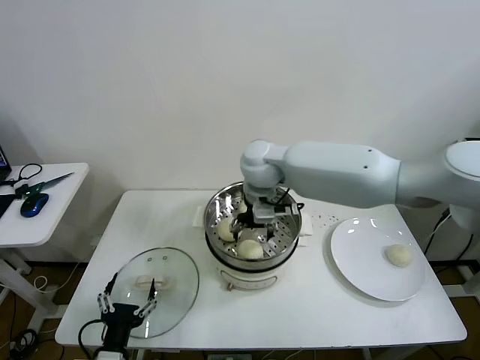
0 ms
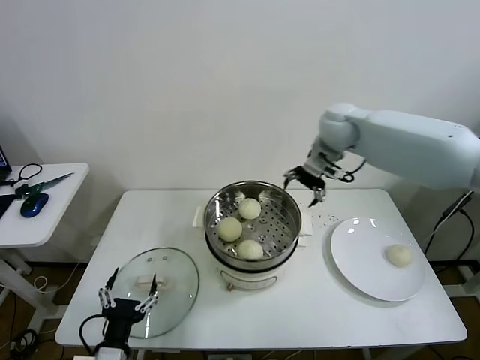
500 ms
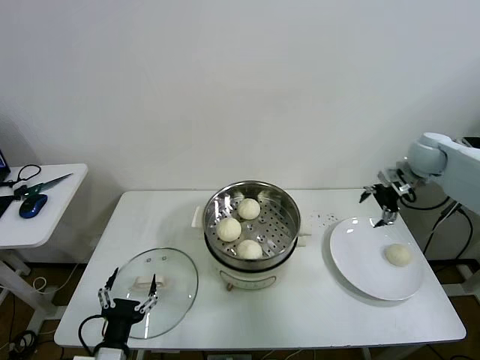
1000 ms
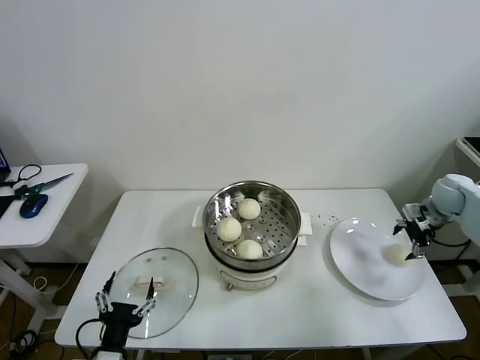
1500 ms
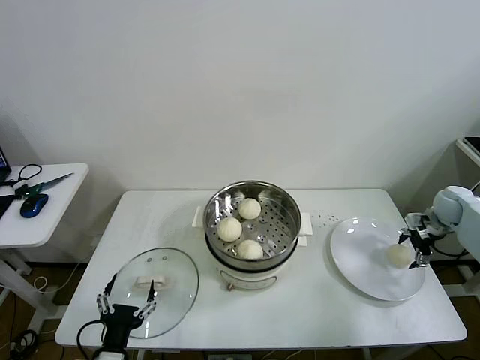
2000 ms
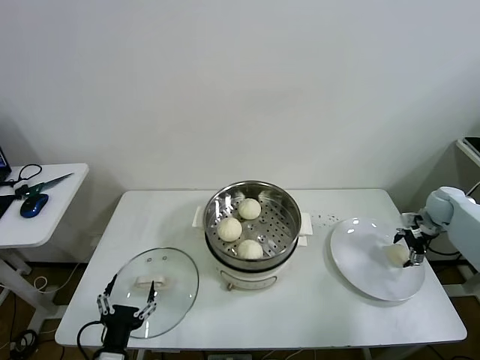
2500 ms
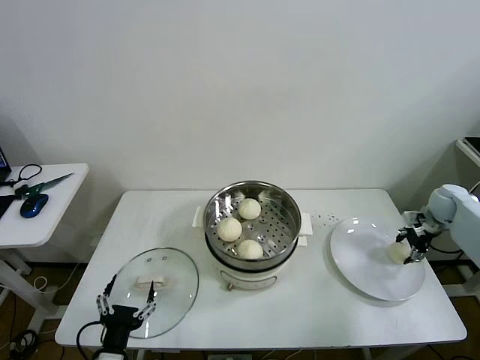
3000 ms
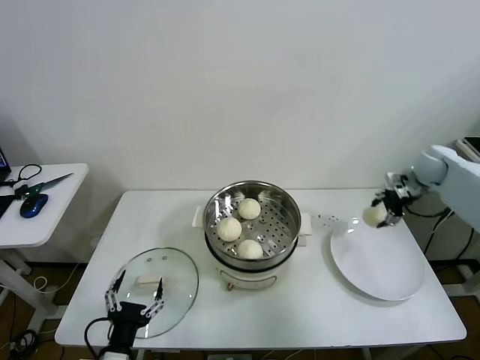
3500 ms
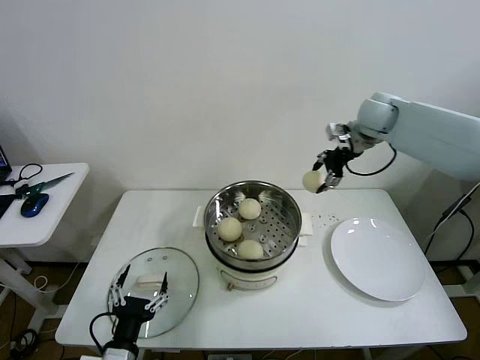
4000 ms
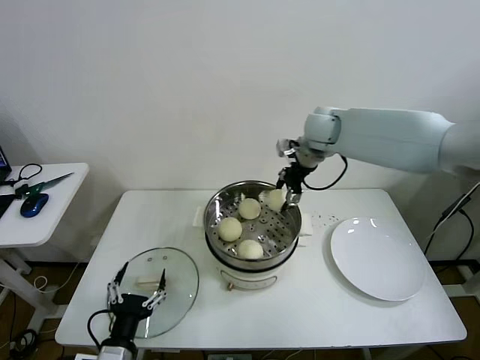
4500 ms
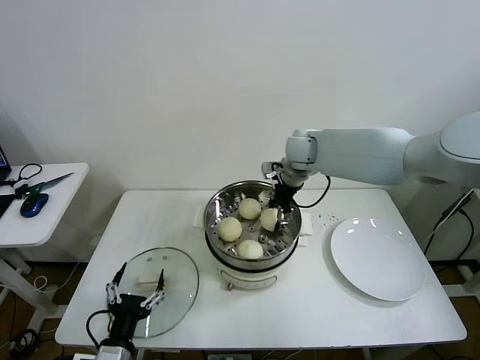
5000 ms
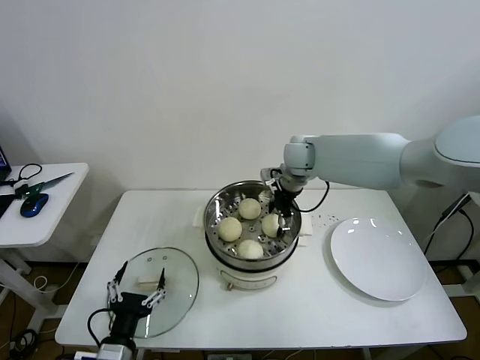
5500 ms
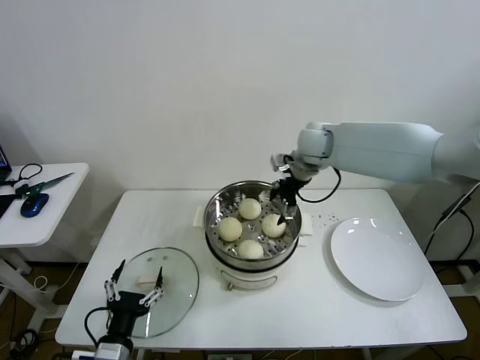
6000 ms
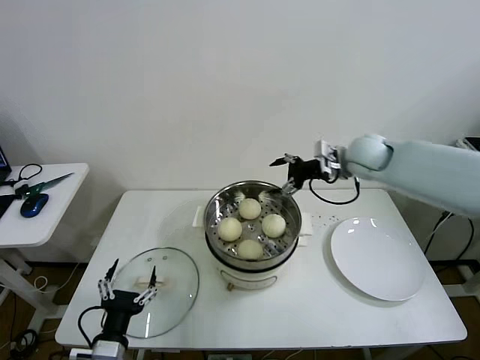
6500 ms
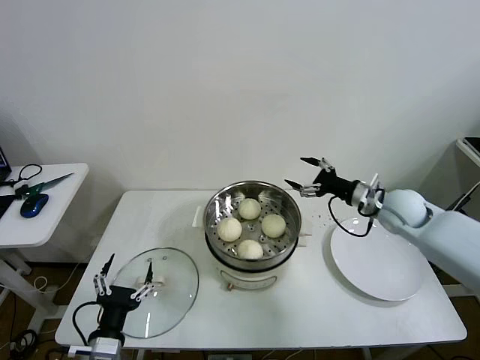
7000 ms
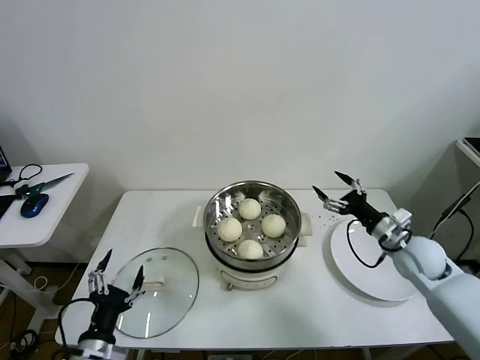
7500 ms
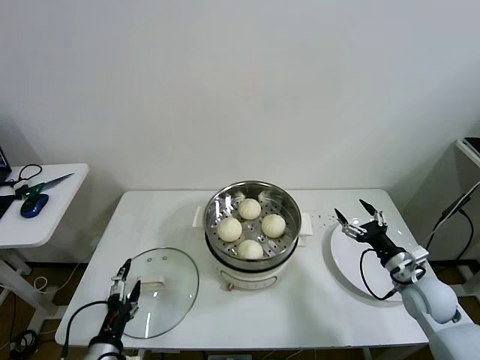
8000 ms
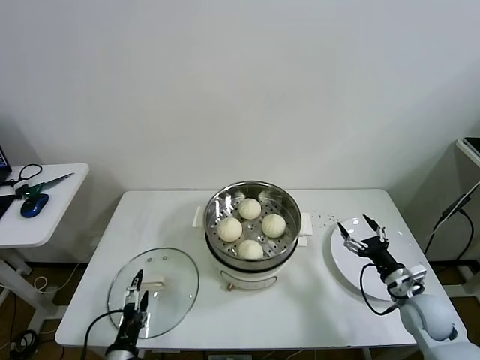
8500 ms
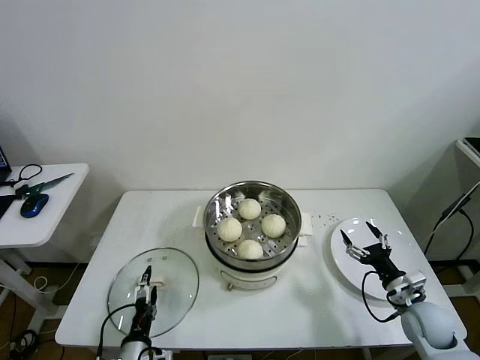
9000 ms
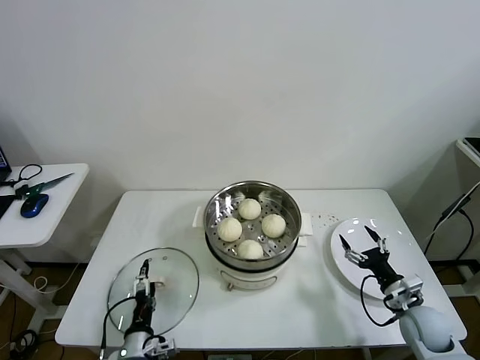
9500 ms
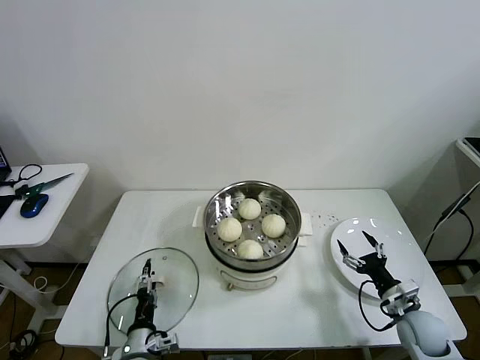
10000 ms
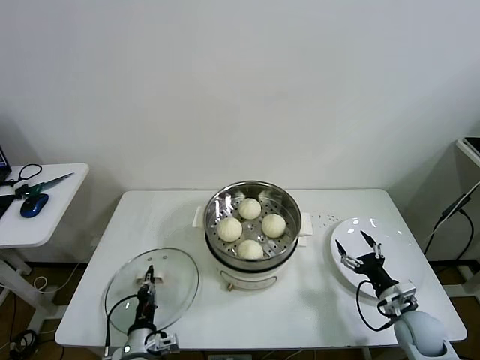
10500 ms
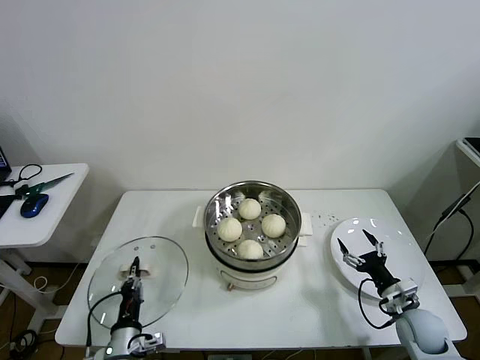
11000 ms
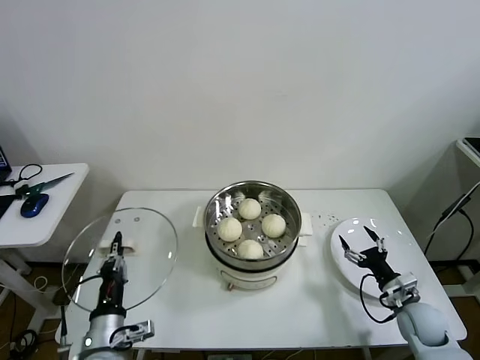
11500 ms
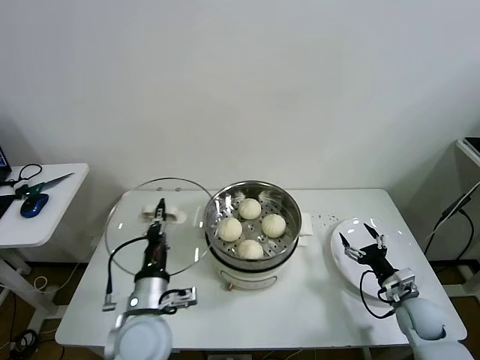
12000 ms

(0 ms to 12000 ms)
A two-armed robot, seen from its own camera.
Task of the whole recording: take steamed baozi put them in steamer then cover it.
Step, 0 ms - 2500 ms: Grasp the baozi in the plate with right gripper.
Step, 3000 ms - 5500 ms: Place the baozi on the steamer with right gripper.
Step, 6000 ms - 10000 ms: Grasp the pot lid with left gripper.
0 ms - 2000 ms: The right gripper moves to the right, approximately 50 cm.
2000 ms - 4000 ms: The right gripper heads to the left and upward, covering approximately 35 cm, and closes up.
4000 ms - 6000 ms: The right gripper is displaced to the left and downward by roughly 15 cm, and opens up.
6000 ms - 8000 ms: The right gripper shifts about 40 cm backward, downward and to the right.
8000 ms - 10000 ms: The left gripper is displaced downward, to the right and forward by roughly 10 cm; the right gripper heads downward, covering about 10 cm.
10000 ms - 12000 ms: The left gripper heads upward, covering approximately 20 cm, and closes.

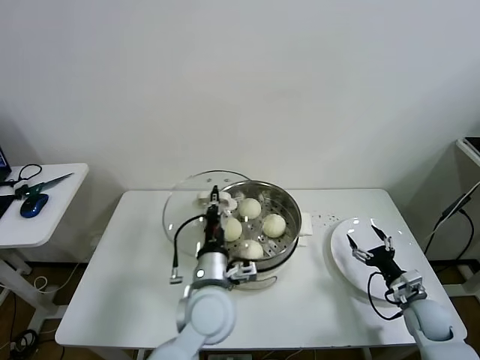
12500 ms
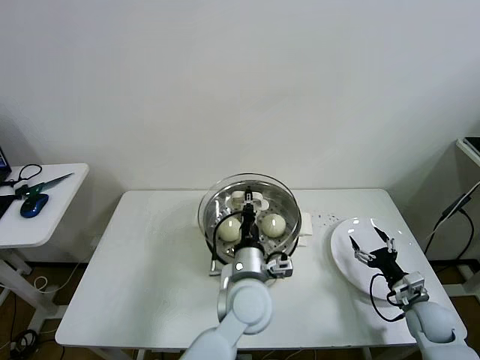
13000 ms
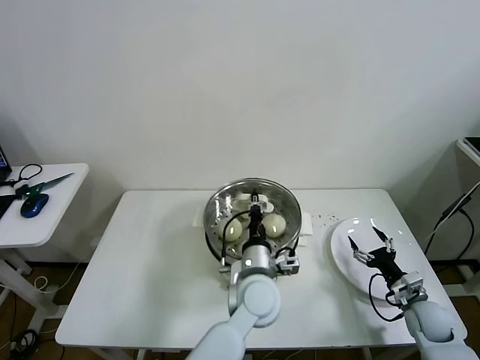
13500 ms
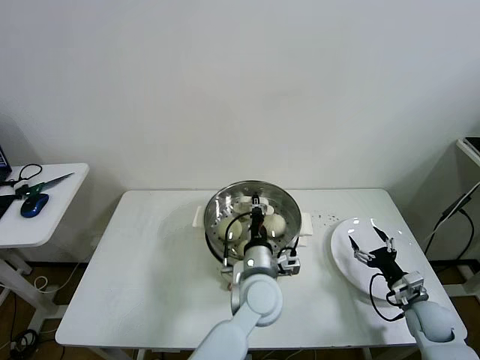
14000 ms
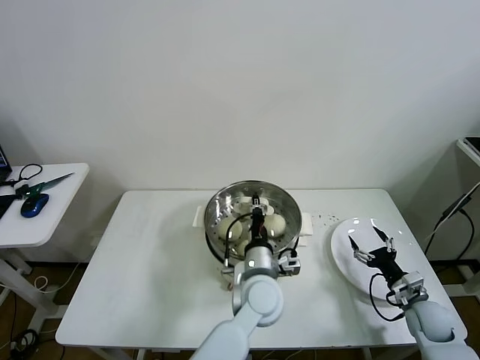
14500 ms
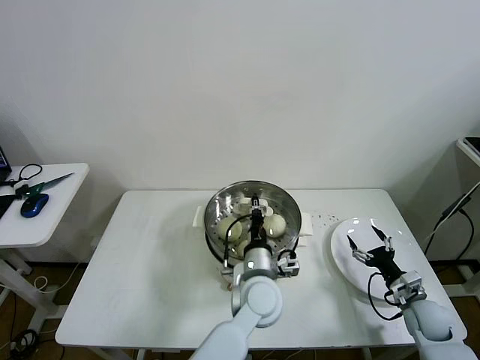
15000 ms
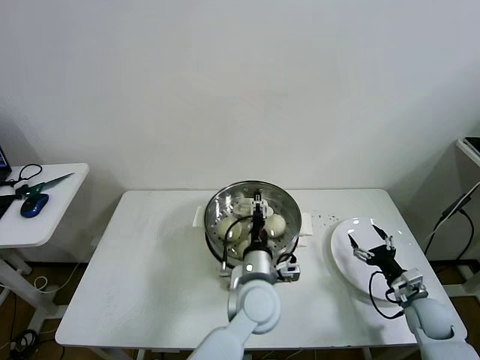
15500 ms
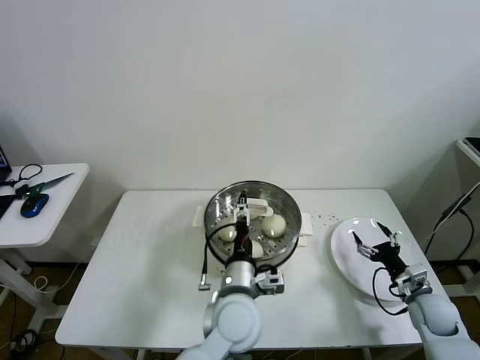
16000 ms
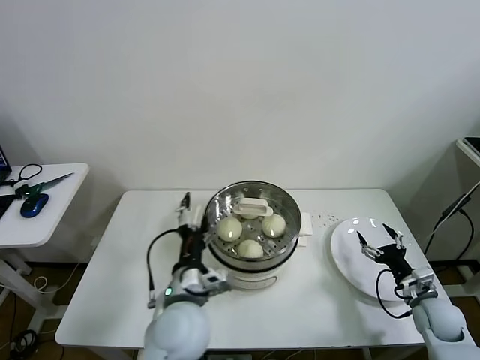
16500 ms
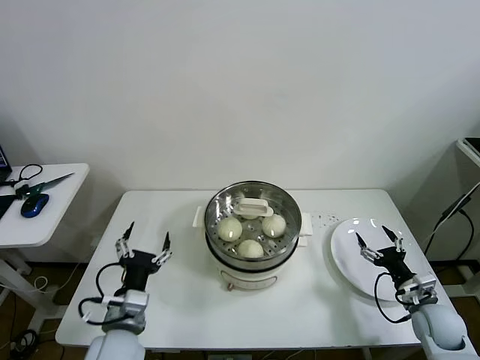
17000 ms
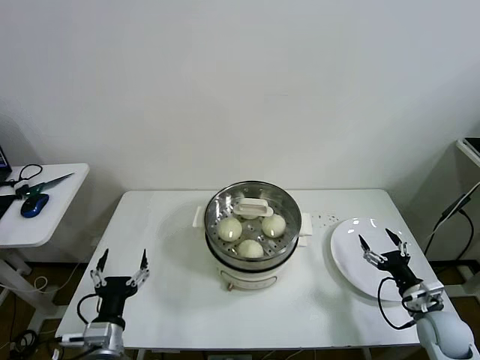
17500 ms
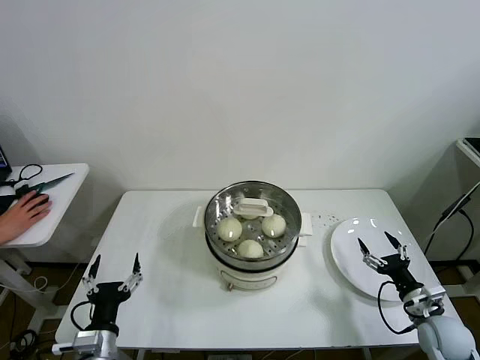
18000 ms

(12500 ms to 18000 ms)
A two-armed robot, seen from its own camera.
Task of the whole recording: take steamed baozi put them in steamer then cover it.
Step, 12500 ms - 15000 ms: Place the pot lid on the steamer with left gripper.
12500 ms - 14500 ms: The left gripper is displaced to the right by roughly 10 cm.
14500 ms - 16000 ms: The left gripper shifts by roughly 5 cm, and opens its fingers.
16000 ms - 18000 ms: The right gripper travels backward by some 5 cm. Meanwhile the left gripper heads to the left and backward, covering roughly 30 cm.
